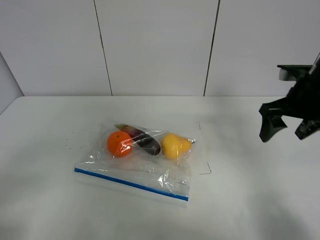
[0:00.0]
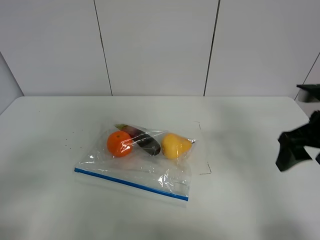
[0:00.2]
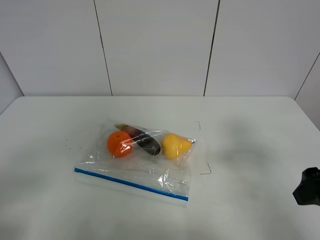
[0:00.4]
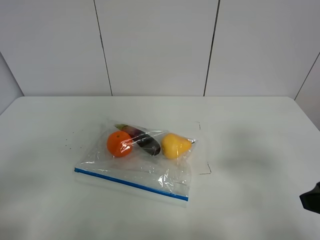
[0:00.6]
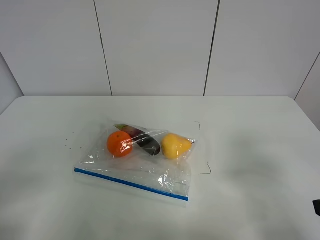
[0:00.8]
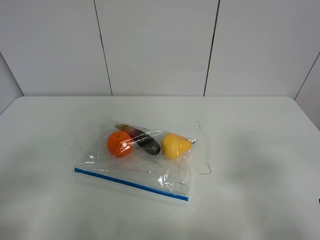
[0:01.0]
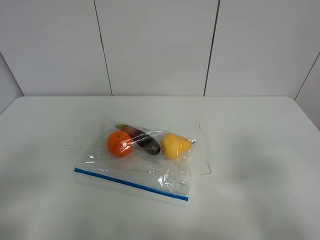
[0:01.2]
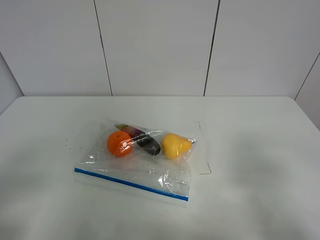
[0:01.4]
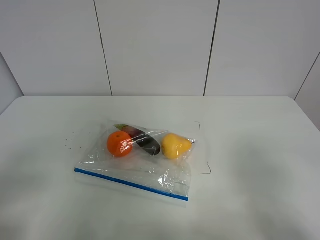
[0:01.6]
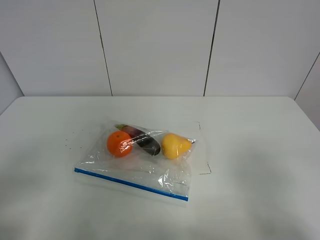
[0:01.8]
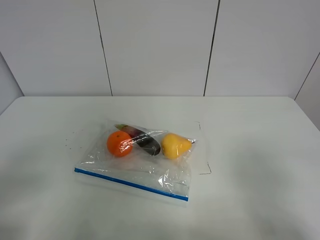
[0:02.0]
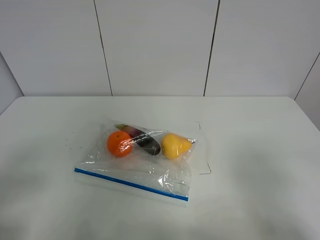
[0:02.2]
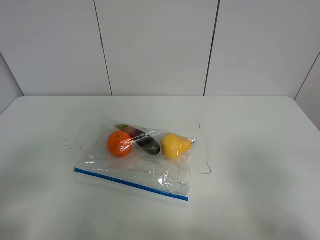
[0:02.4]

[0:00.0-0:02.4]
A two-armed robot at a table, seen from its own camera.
0:00.0 to 0:01.2: The right gripper heads backward, covering approximately 20 cm.

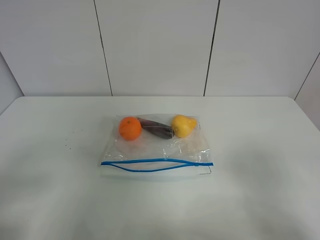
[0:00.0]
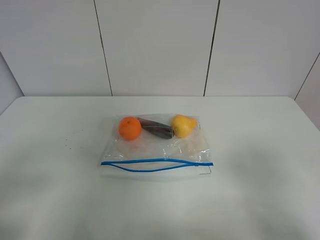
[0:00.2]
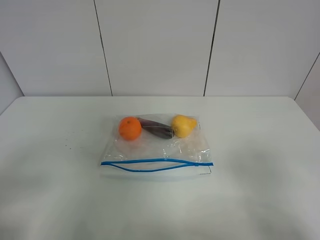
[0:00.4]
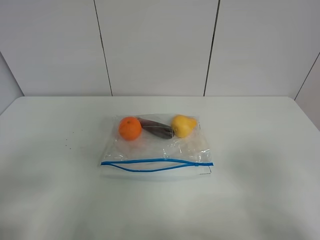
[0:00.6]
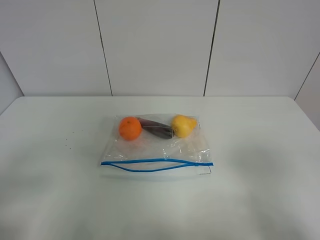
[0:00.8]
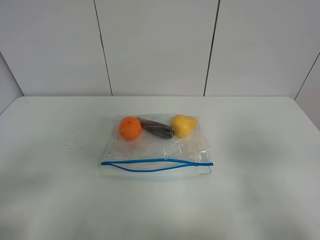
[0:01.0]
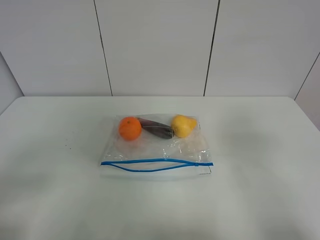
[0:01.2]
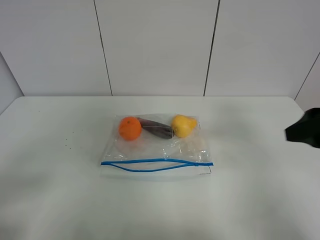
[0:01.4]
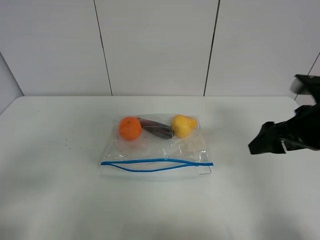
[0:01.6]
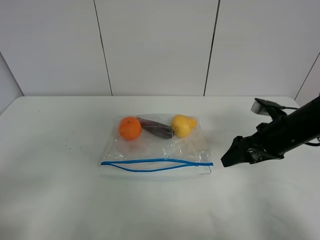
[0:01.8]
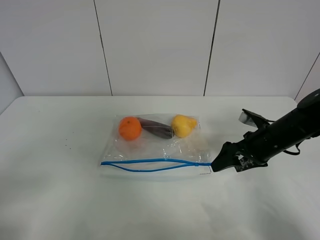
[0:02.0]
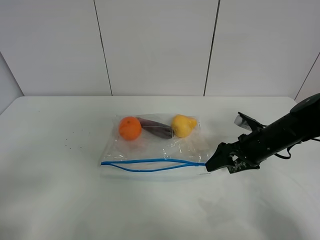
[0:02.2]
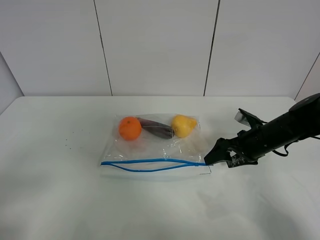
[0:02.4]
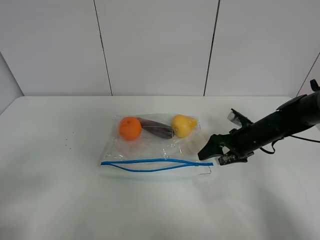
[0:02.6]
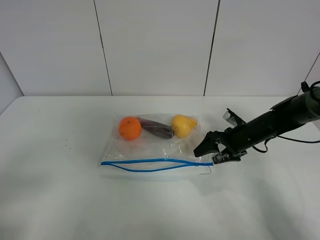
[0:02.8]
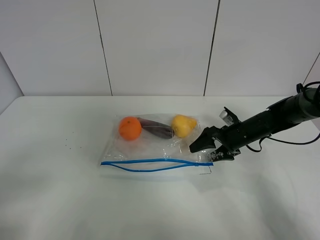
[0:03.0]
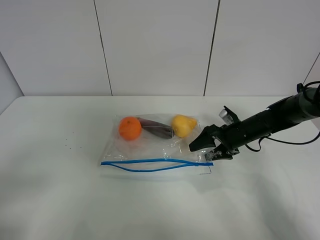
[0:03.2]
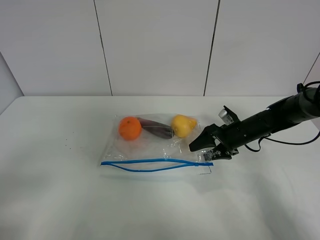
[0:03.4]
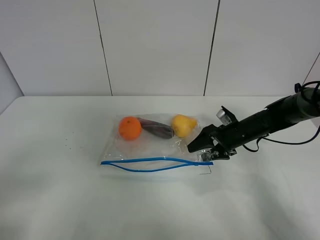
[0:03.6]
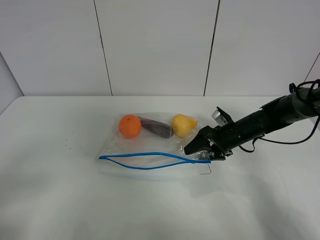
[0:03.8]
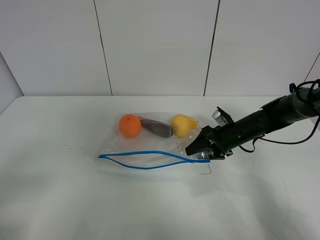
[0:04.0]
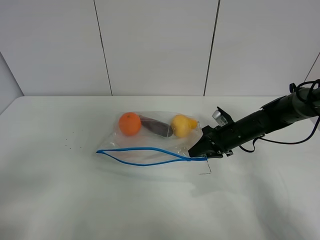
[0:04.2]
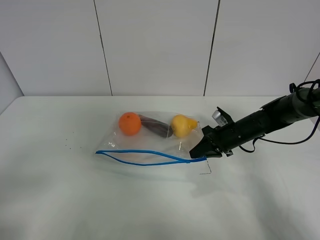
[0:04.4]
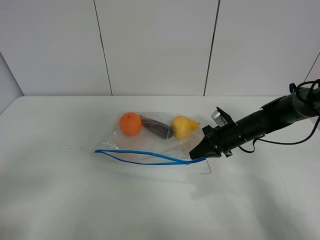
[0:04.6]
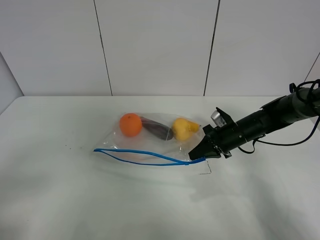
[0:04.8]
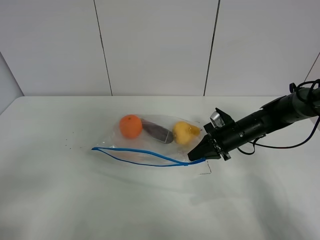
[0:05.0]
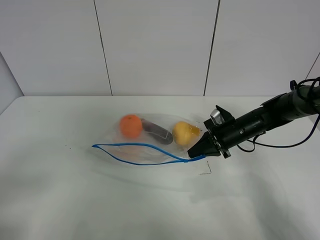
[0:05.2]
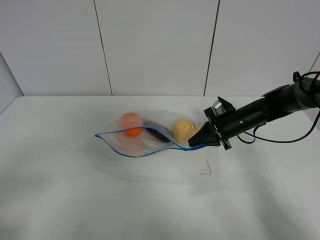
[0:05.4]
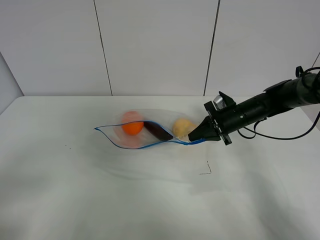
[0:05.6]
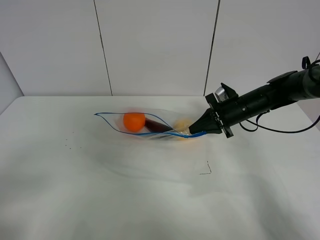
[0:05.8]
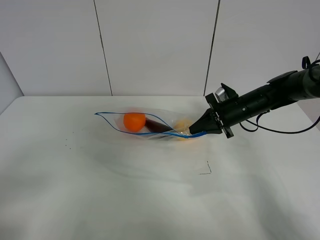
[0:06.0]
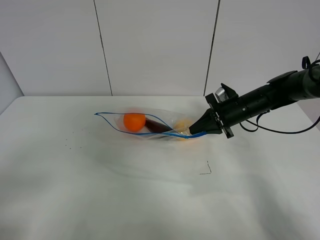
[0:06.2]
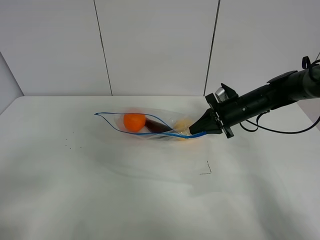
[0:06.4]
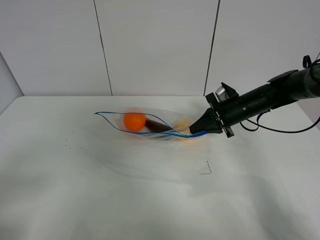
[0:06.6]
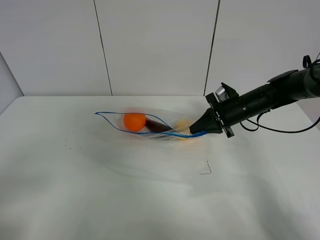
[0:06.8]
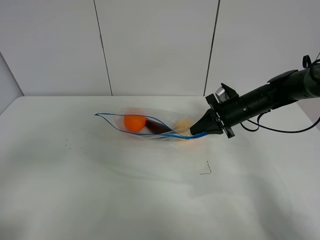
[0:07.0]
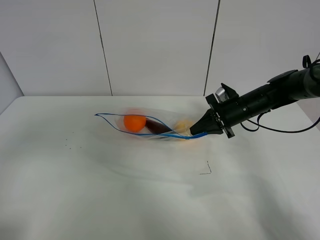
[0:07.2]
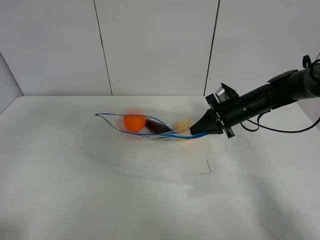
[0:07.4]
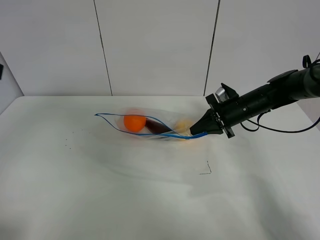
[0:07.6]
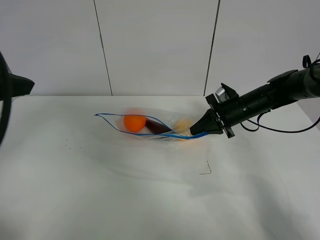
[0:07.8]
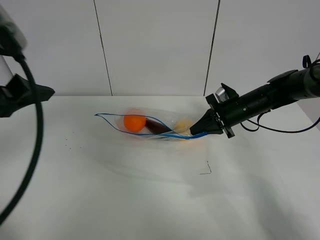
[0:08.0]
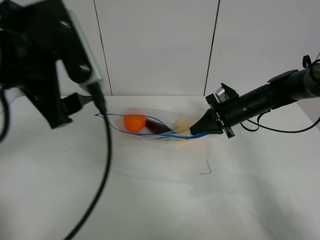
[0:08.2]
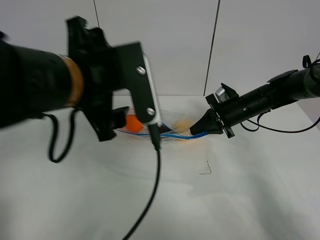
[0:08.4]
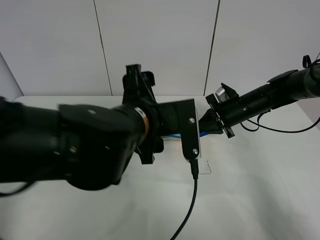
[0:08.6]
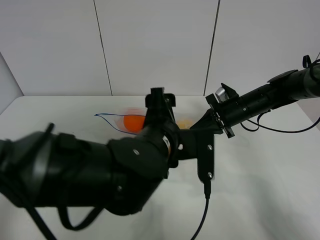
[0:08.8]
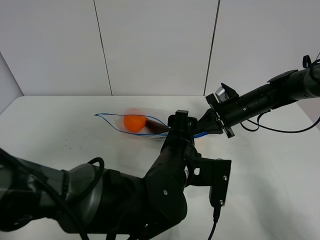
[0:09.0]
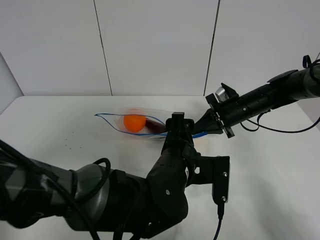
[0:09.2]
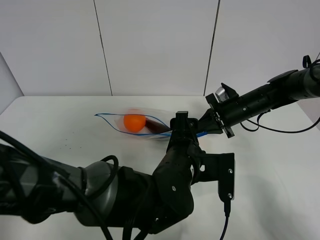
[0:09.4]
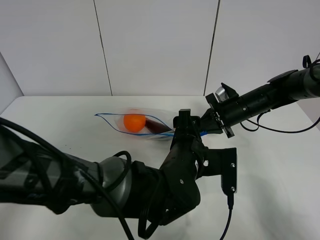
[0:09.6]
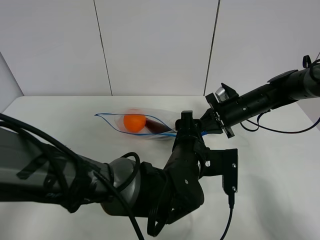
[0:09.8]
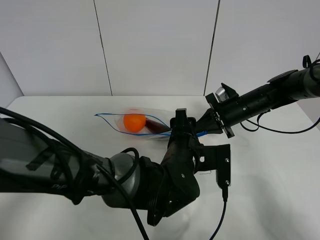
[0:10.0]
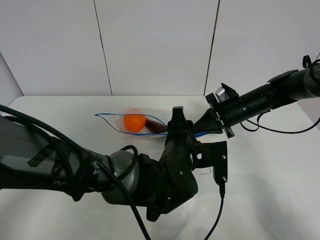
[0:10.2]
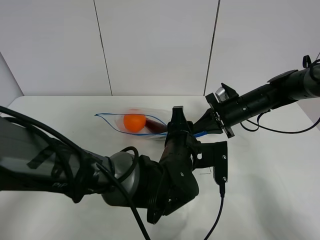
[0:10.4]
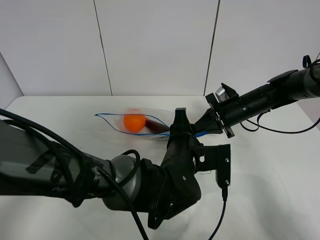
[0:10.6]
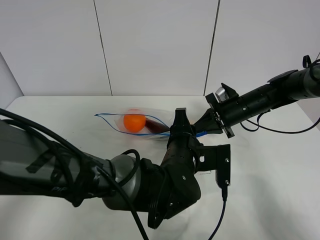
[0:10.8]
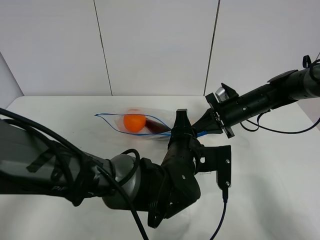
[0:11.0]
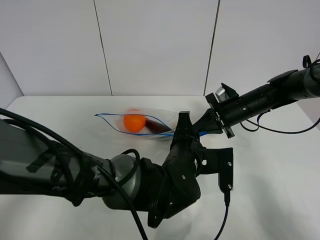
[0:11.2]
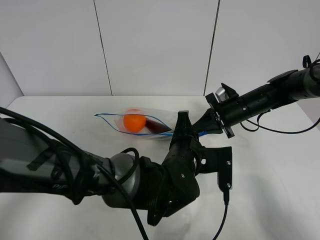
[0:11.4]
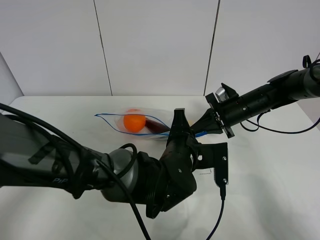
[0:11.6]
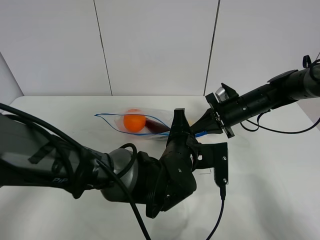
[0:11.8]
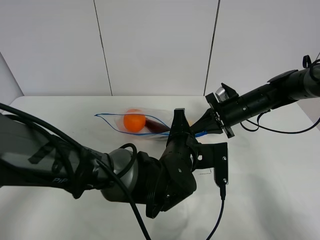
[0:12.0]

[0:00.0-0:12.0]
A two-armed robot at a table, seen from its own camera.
Step, 0:00.0 to 0:04.4: Grasp the fruit bag with right gripper.
Step, 0:04.6 to 0:06.2: Lift the fruit bag with your right gripper.
0:00.0 to 0:01.6: The right gripper is displaced forward by about 25 cm.
0:01.6 to 0:03.0: The right gripper moves downward and forward, approximately 20 cm.
0:03.0 to 0:04.4: The right gripper closes.
0:04.4 to 0:06.0: The right gripper is displaced upward by some 5 cm.
0:06.0 to 0:07.6: The left gripper moves forward and upward, about 20 cm.
0:07.6 to 0:09.0: The left gripper is displaced to the right and downward by roughly 40 cm.
0:09.0 to 0:10.4: The left gripper closes its fingers.
0:10.4 to 0:12.0: The left gripper closes up.

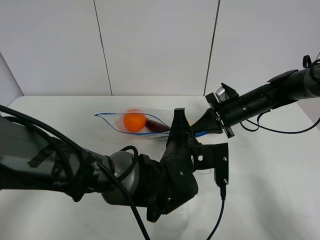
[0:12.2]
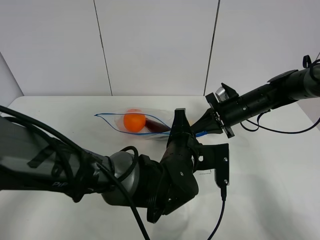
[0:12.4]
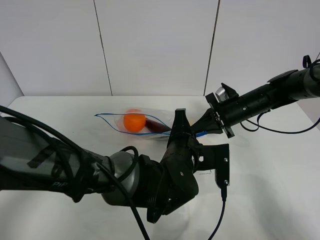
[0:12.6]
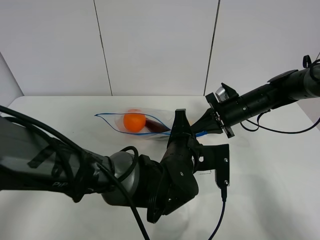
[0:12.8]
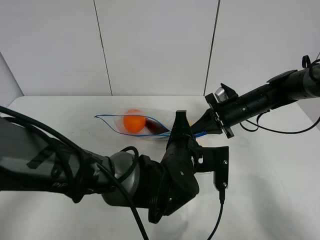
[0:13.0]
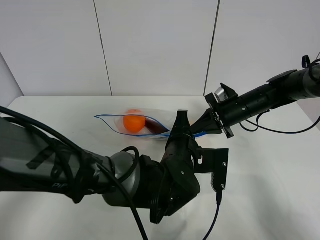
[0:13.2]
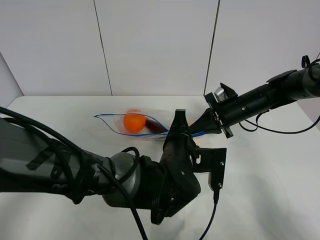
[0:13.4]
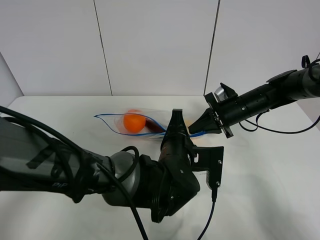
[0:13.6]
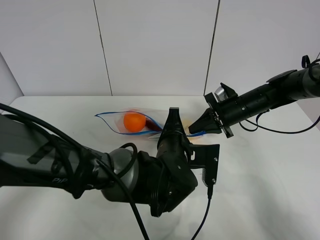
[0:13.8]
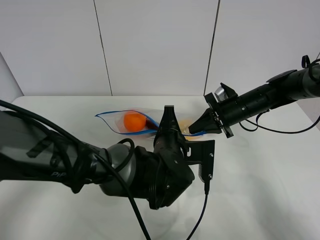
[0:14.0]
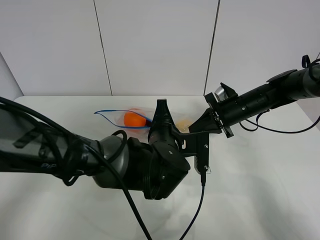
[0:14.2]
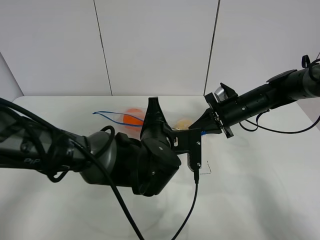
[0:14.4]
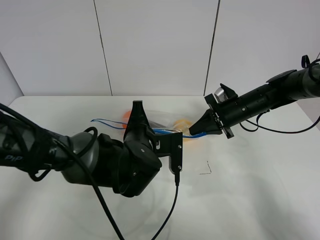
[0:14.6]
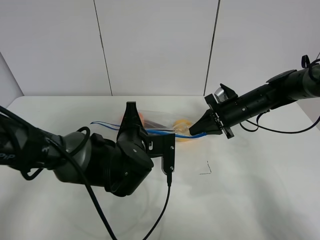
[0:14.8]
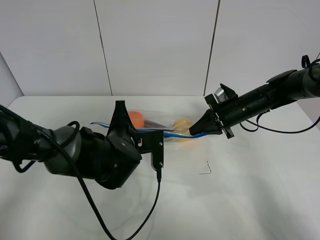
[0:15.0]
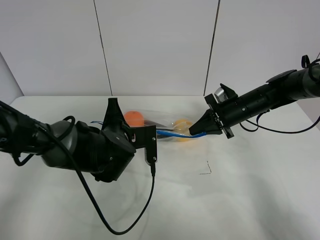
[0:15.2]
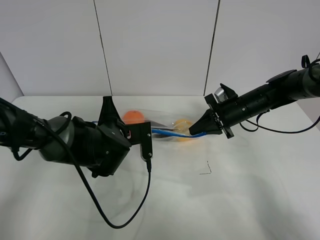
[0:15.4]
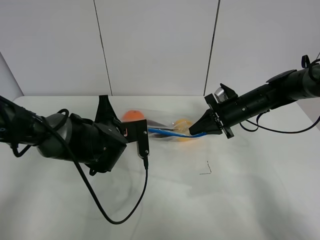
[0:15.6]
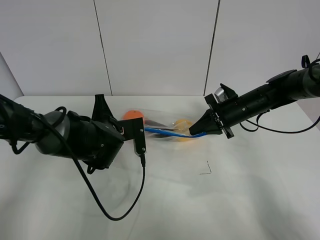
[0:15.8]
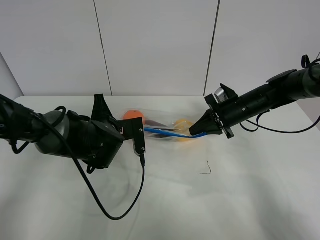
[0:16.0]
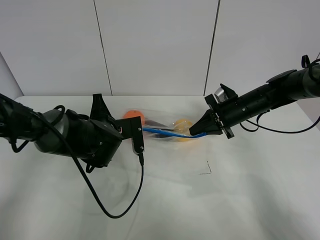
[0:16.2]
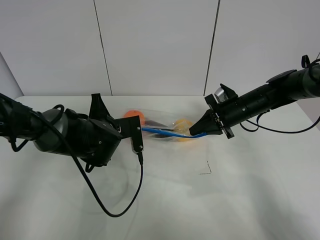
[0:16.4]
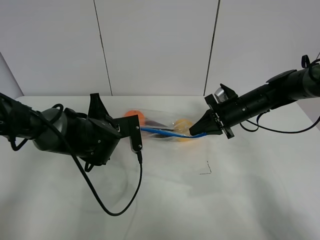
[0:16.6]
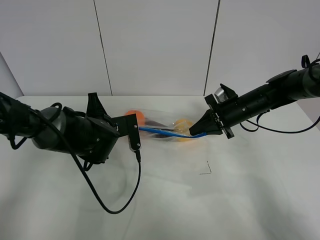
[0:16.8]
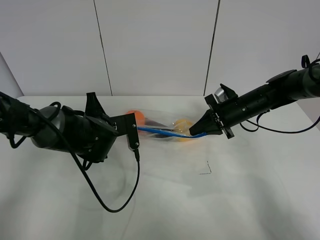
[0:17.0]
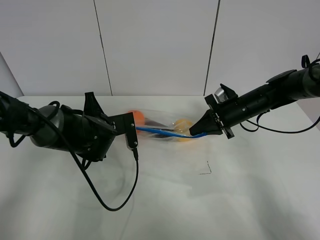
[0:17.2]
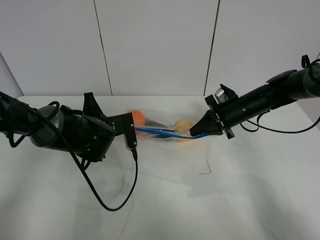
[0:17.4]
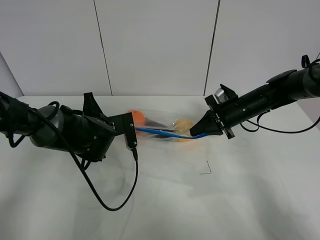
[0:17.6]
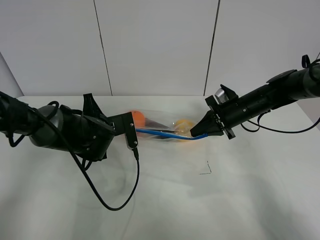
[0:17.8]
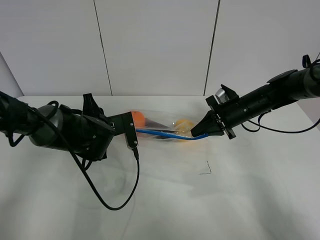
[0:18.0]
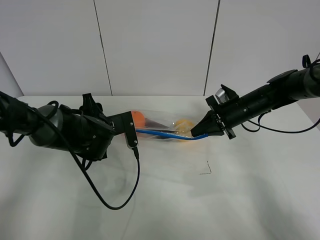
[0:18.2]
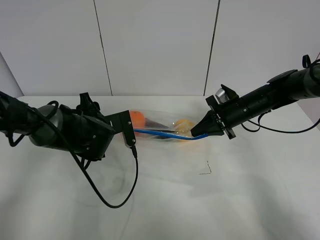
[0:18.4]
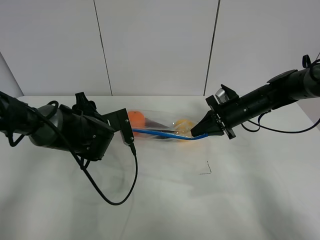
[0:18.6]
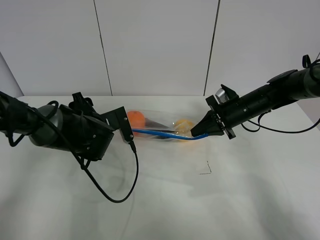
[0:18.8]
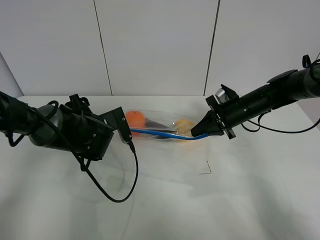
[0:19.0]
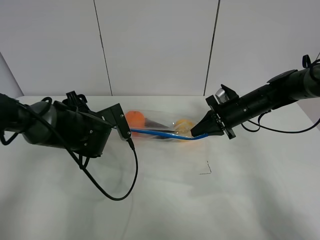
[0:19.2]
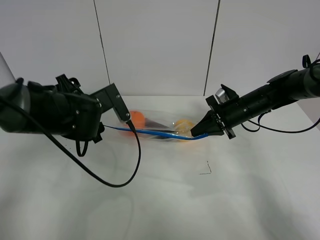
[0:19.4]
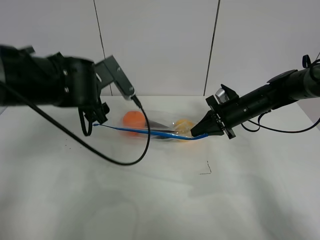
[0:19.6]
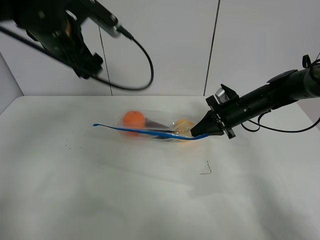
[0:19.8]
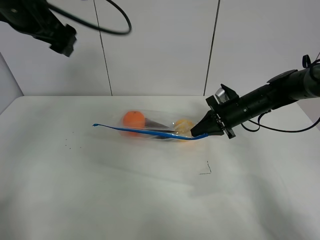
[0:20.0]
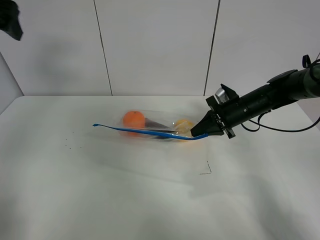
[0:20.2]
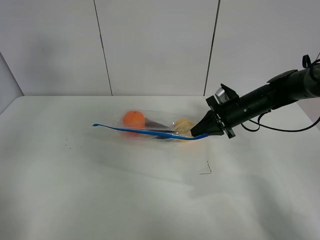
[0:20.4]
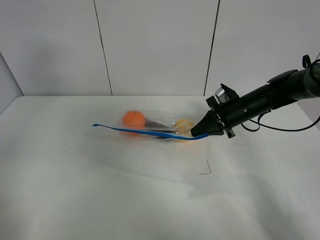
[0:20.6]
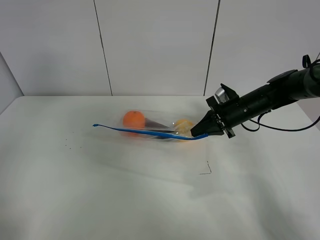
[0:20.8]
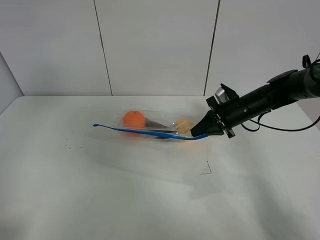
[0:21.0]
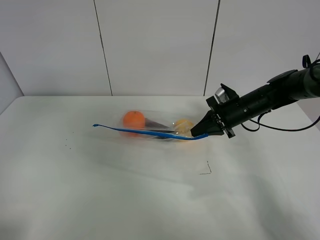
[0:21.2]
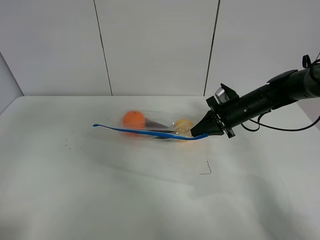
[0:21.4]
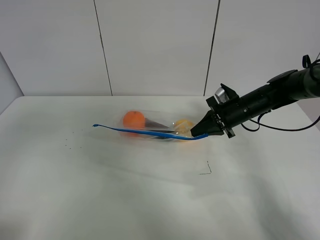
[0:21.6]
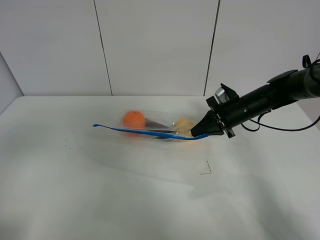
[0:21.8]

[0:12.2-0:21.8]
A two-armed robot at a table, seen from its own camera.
Step, 0:12.2 to 0:18.2: Pull the fruit bag with left gripper.
0:12.2 to 0:13.8: There are only small adjustments of the grippers.
0:13.8 to 0:15.4: The left gripper heads to the left and forward, covering some 15 cm.
0:15.4 to 0:17.0: There are only small adjustments of the grippers.
0:17.0 to 0:18.6: The left gripper opens its fingers.
0:18.6 to 0:20.2: The left gripper heads upward and to the left, covering about 35 cm.
0:20.2 to 0:21.8: The left gripper goes approximately 30 cm backward.
